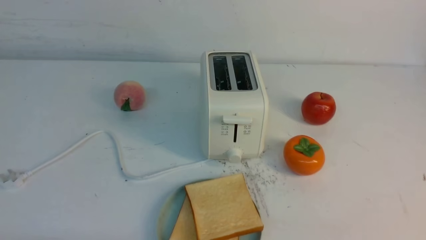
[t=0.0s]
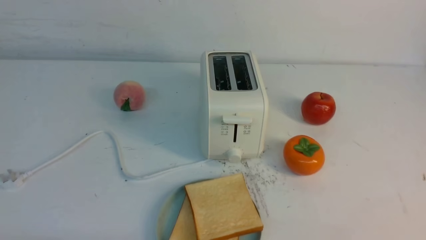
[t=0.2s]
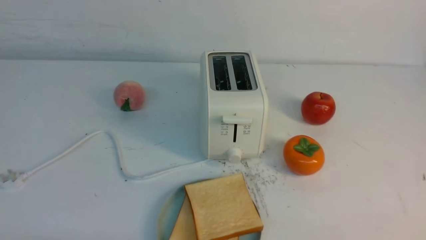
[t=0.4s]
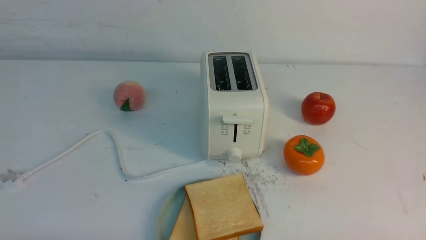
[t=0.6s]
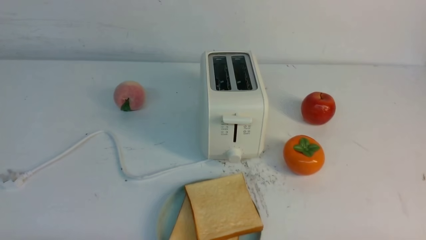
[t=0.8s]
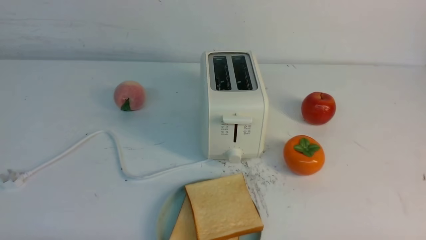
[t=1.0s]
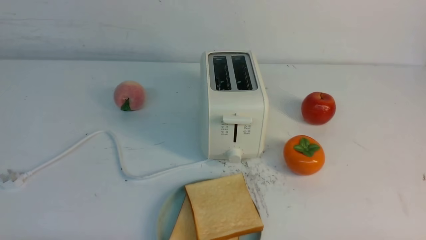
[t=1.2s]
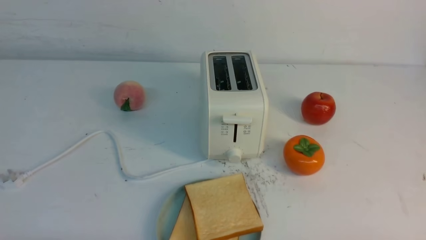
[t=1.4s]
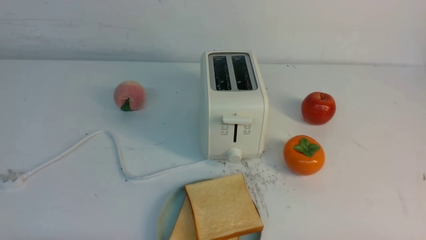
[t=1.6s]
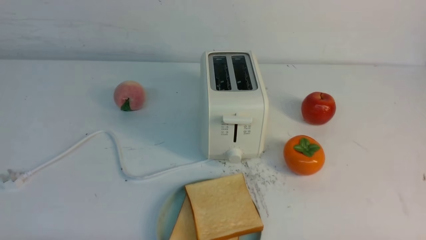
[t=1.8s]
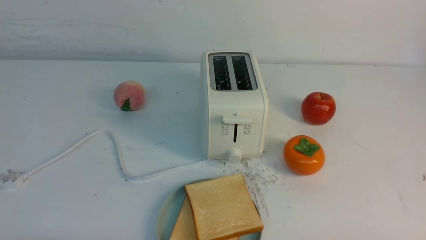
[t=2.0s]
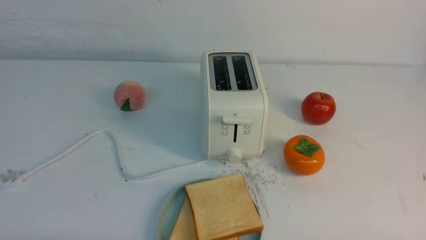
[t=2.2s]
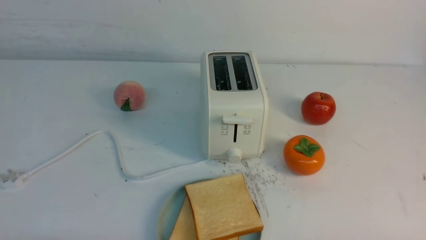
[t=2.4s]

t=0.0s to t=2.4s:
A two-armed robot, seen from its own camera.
Task of the whole recording: take toasted bread from bread machine on white table place on plate.
t=1.2s to t=2.4s: The two grippers keep their place.
